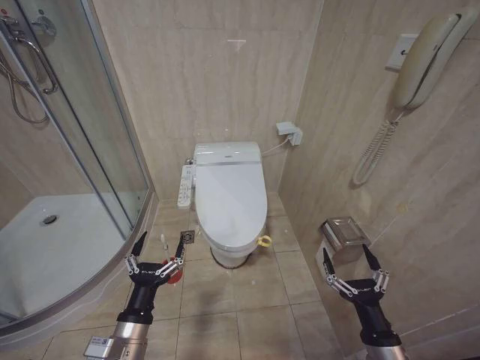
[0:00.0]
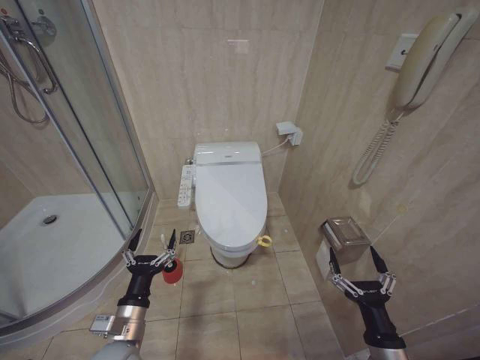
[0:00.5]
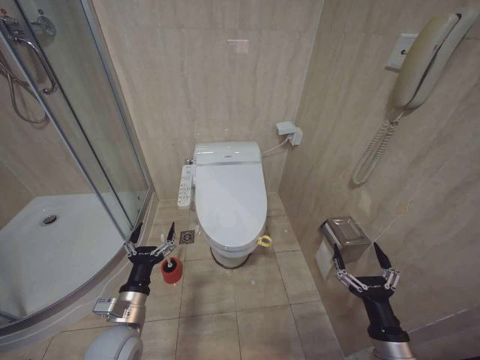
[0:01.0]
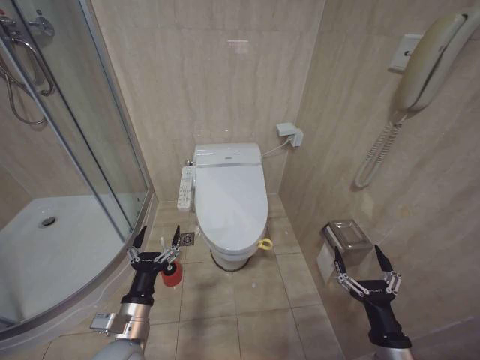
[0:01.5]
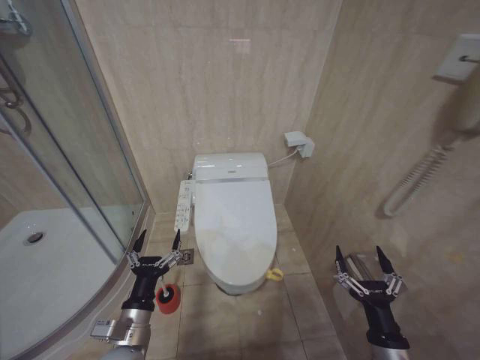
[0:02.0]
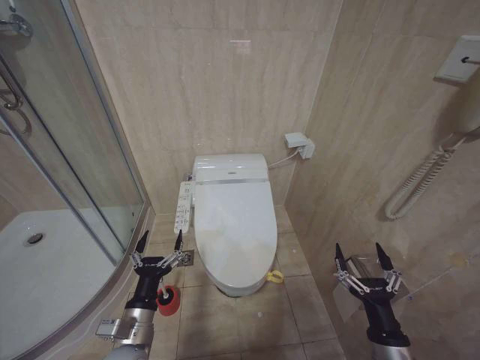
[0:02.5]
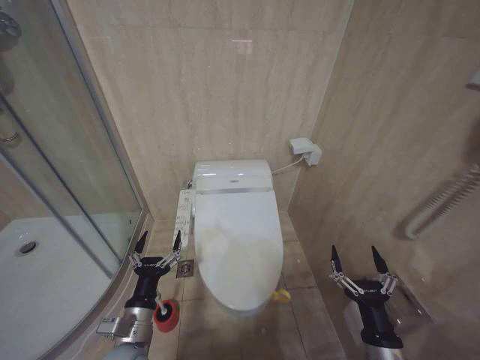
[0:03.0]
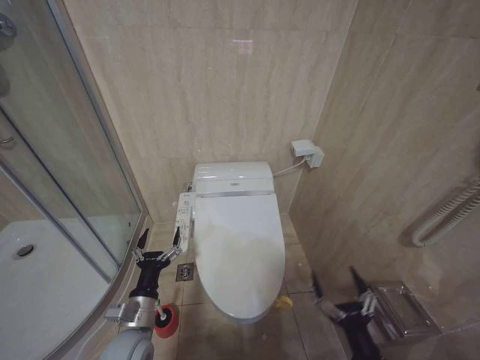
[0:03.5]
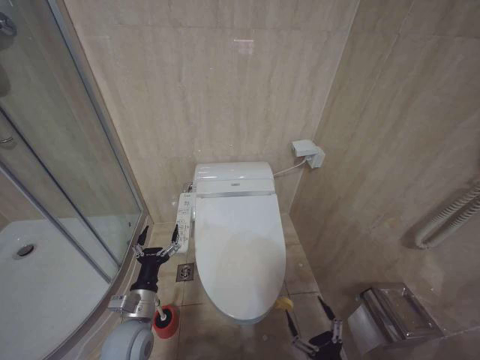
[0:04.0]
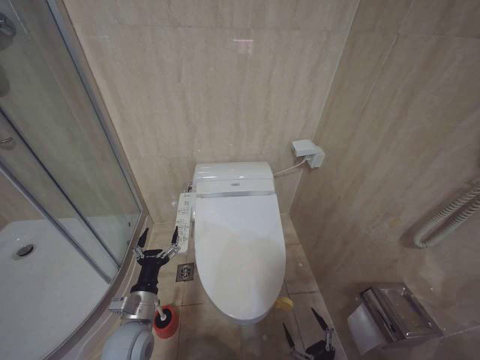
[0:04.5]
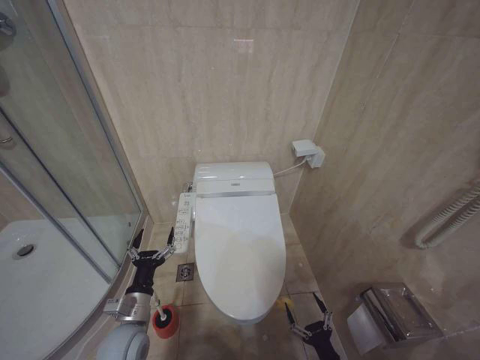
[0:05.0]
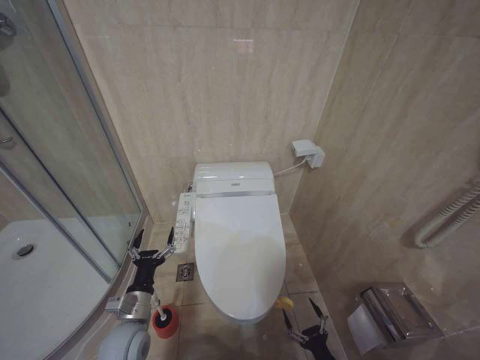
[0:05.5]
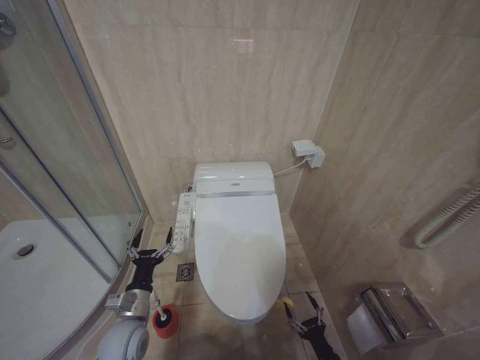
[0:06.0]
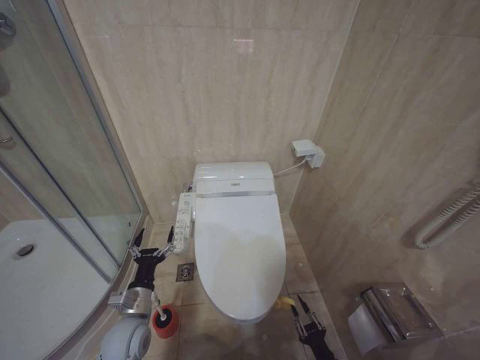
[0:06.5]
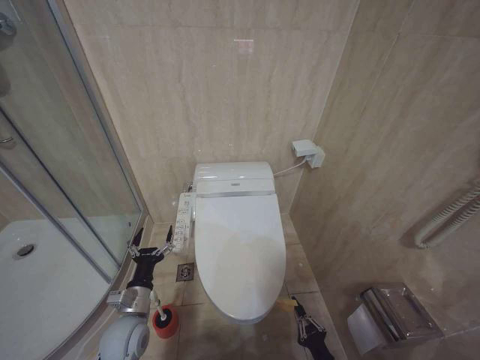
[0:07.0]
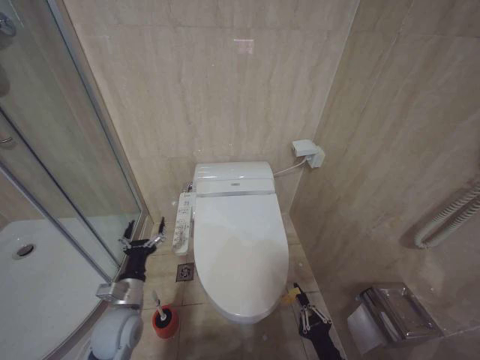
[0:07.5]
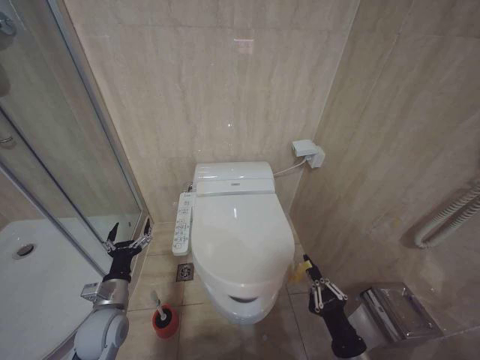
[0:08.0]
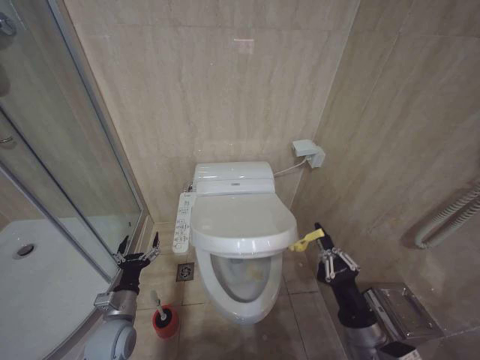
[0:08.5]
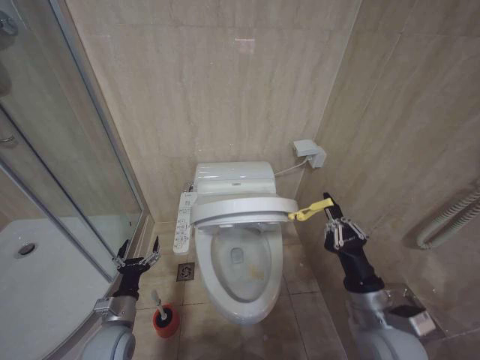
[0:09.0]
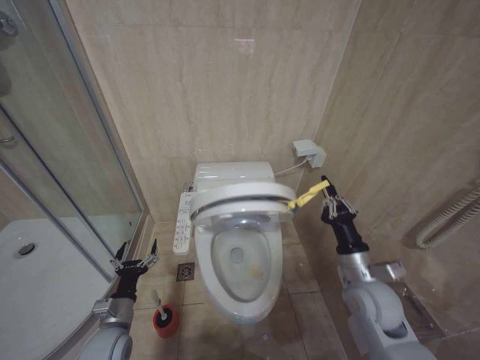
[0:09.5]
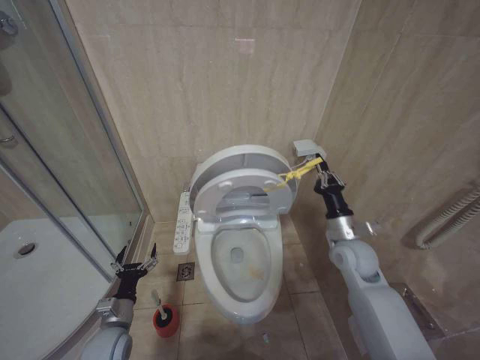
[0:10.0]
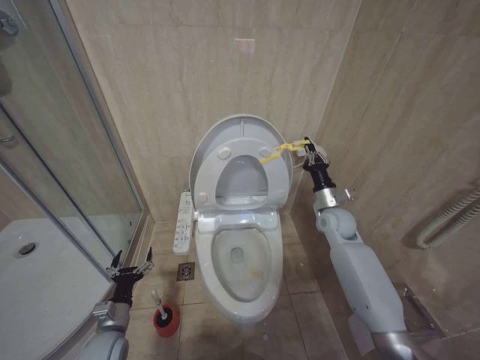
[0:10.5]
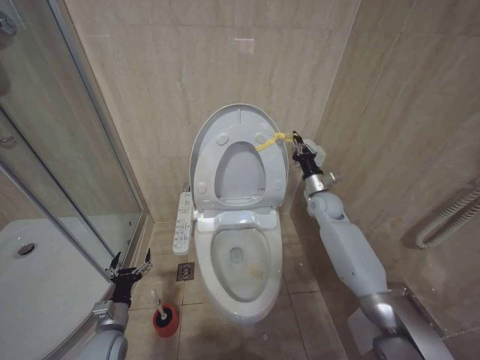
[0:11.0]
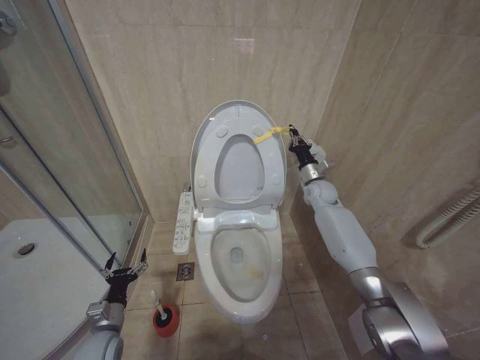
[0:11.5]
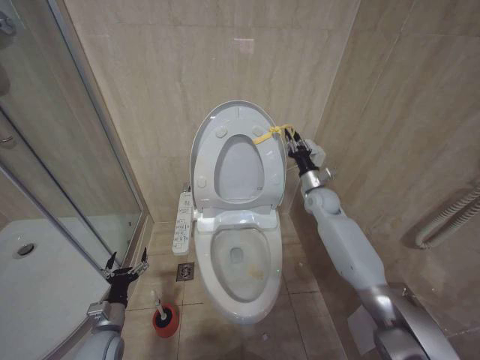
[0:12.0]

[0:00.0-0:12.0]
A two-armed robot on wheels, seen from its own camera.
Task of the whole recording: Open the toilet lid, clean the toilet bowl with a toilet brush, close the toilet lid, and flush.
0:02.0 to 0:04.0: The right gripper goes about 10 cm downward and backward; the left gripper shifts approximately 5 cm forward.
0:04.0 to 0:06.0: The right gripper travels downward and forward by roughly 15 cm.
0:06.0 to 0:08.0: The right gripper heads upward, covering roughly 20 cm, and closes its fingers. The left gripper moves some 5 cm.
0:08.0 to 0:10.0: The right gripper moves forward and upward, approximately 25 cm, while the left gripper heads downward, covering about 5 cm.
0:10.0 to 0:12.0: The right gripper shifts about 20 cm forward.

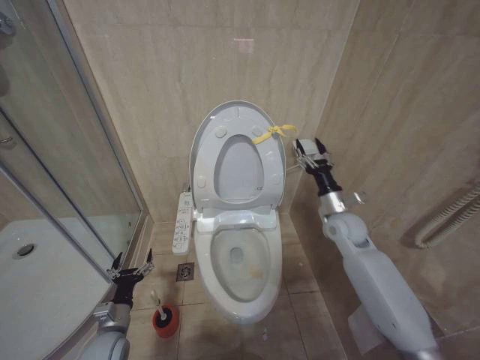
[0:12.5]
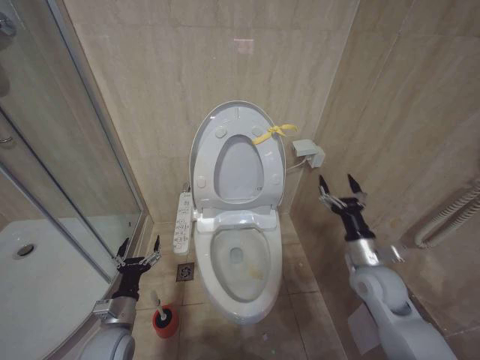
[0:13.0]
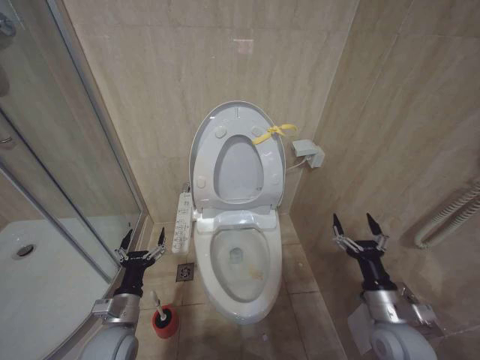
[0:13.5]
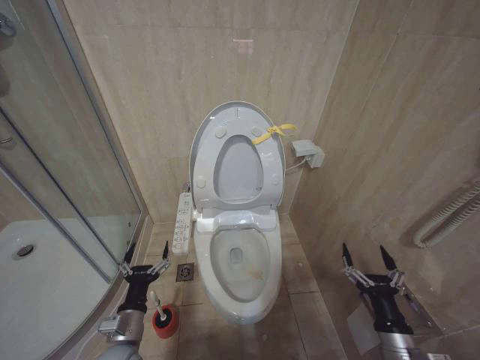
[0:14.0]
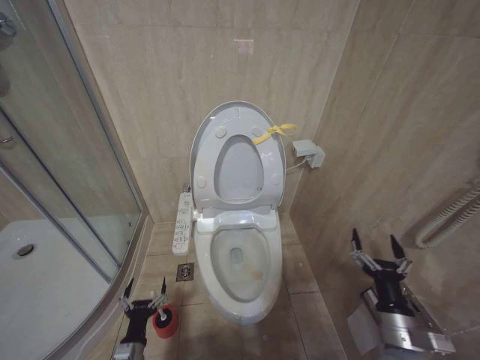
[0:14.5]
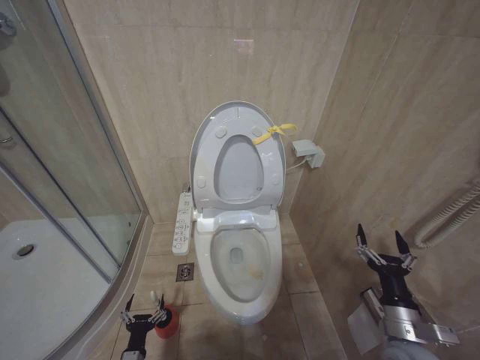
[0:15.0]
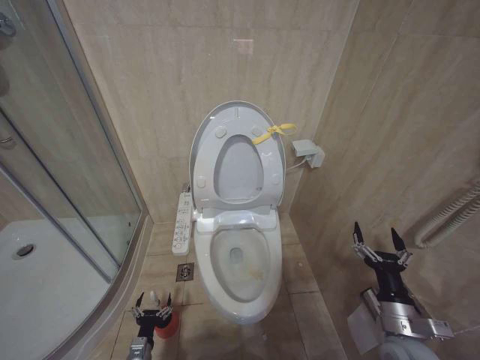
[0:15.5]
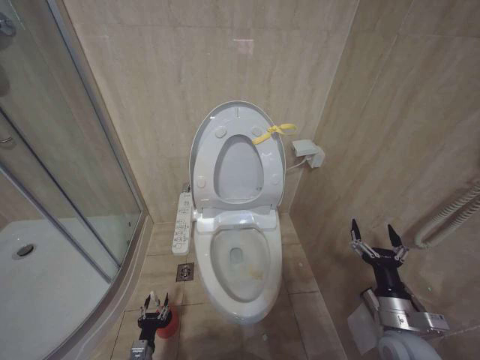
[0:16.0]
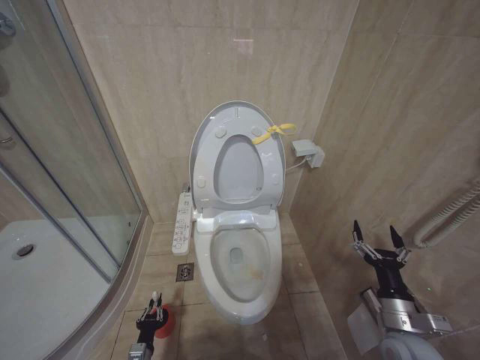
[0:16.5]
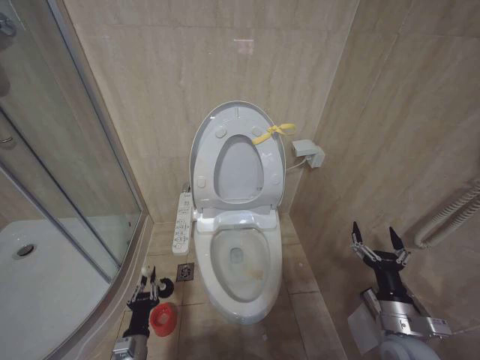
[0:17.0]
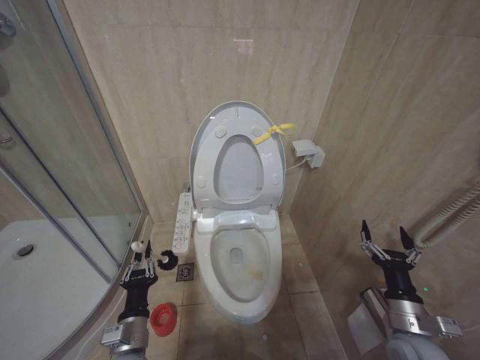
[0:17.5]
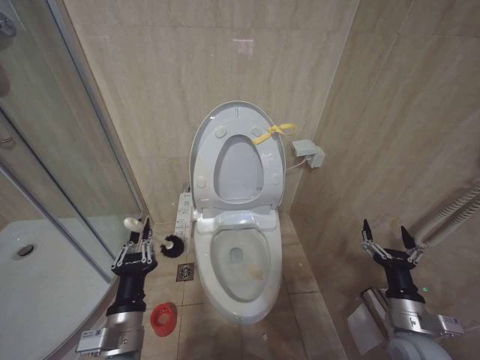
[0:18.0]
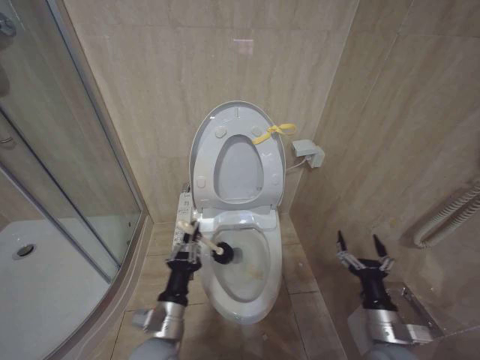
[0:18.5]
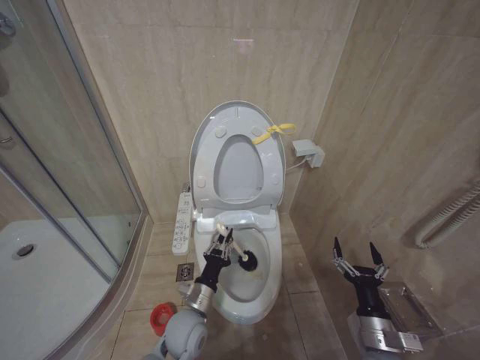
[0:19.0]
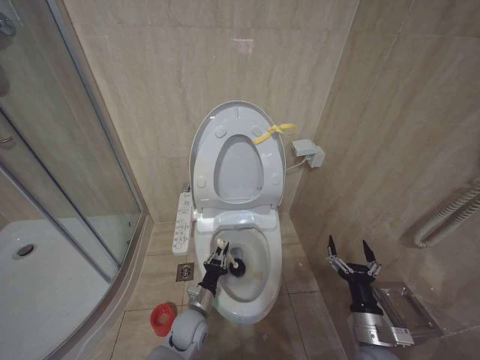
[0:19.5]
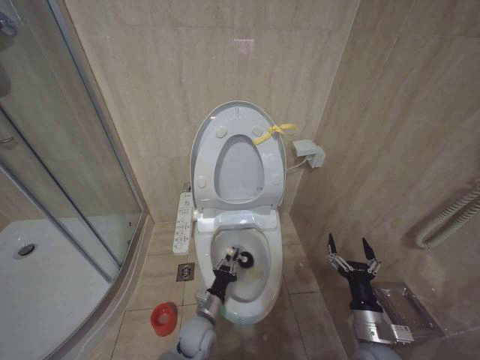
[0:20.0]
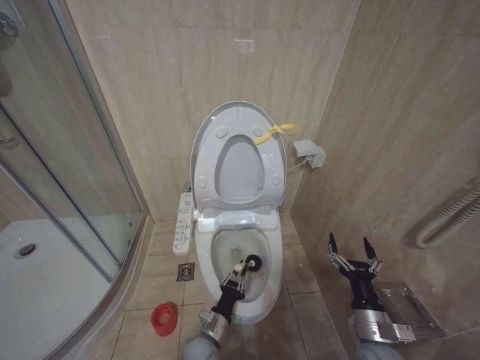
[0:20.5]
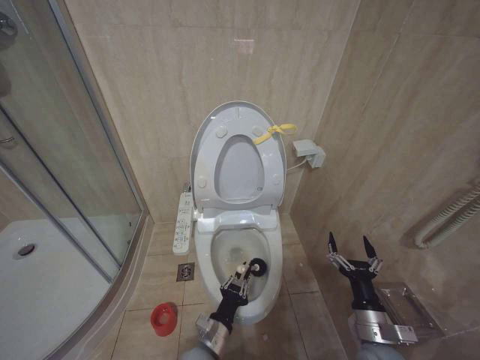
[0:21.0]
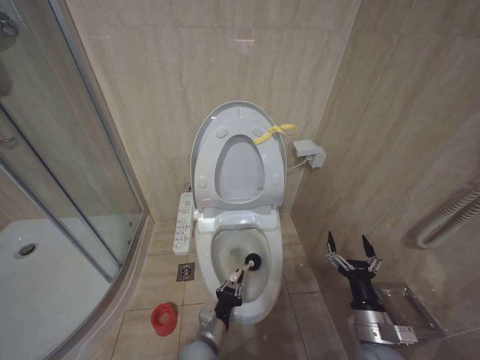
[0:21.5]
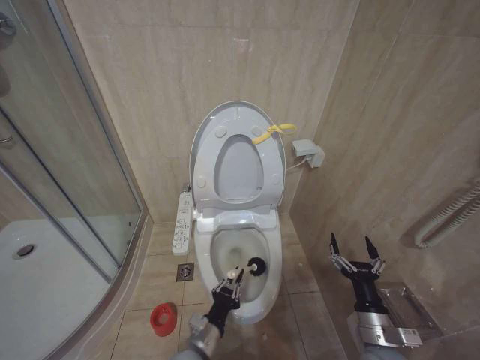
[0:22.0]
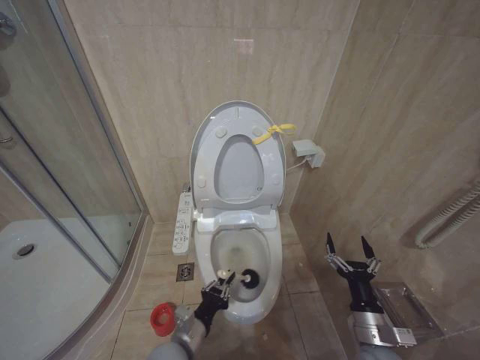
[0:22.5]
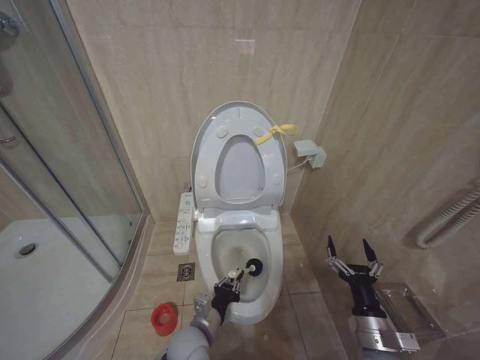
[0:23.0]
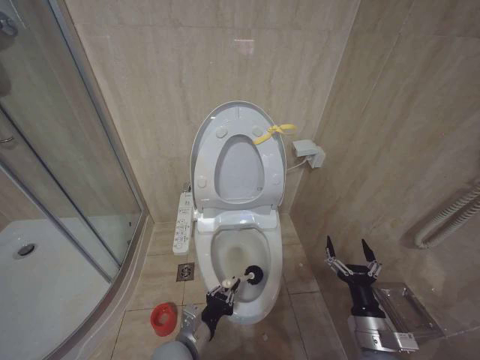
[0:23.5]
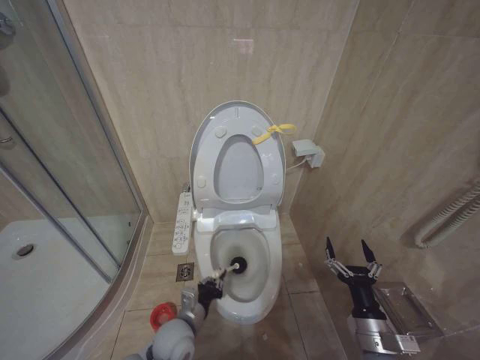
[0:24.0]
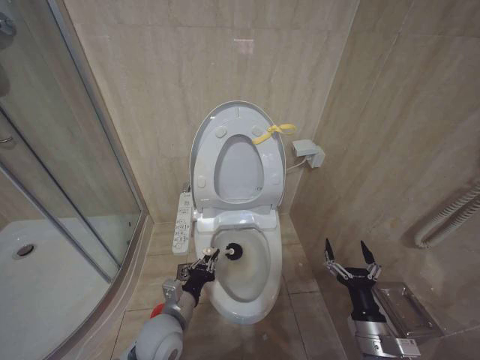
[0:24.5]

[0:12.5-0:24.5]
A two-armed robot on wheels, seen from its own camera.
Task of the whole recording: Open the toilet lid, clean the toilet bowl with a toilet brush, close the toilet lid, and flush.
0:12.5 to 0:14.5: The left gripper goes approximately 10 cm backward and to the right, and goes upward and returns, roughly 10 cm each way; the right gripper moves backward and downward, approximately 30 cm.
0:14.5 to 0:16.5: The left gripper travels downward by some 10 cm, and closes up.
0:16.5 to 0:18.5: The left gripper is displaced upward and to the right by approximately 30 cm.
0:18.5 to 0:20.5: The left gripper is displaced downward and to the right by roughly 20 cm.
0:20.5 to 0:22.5: The left gripper goes approximately 10 cm upward and to the left.
0:22.5 to 0:24.5: The left gripper goes approximately 5 cm forward.

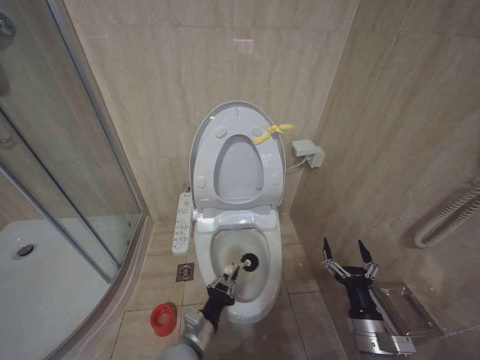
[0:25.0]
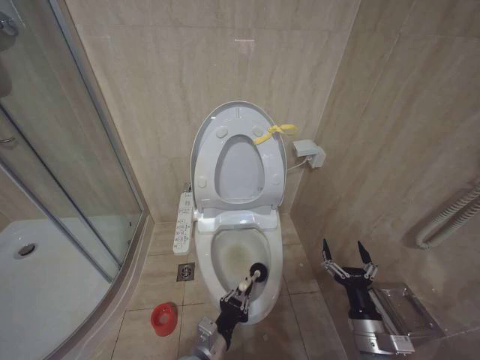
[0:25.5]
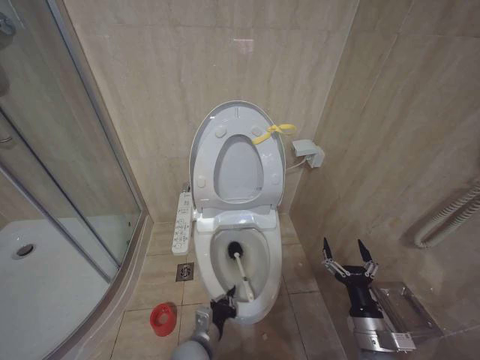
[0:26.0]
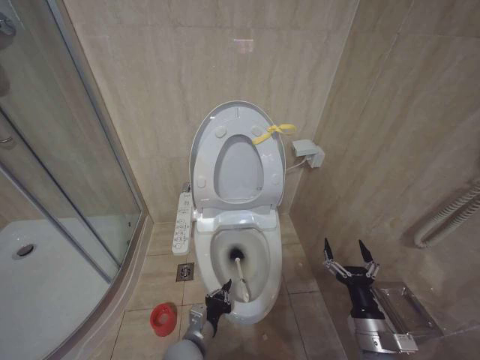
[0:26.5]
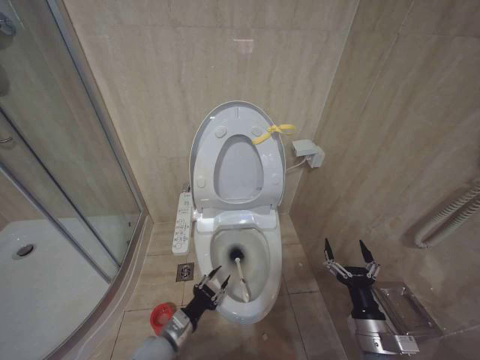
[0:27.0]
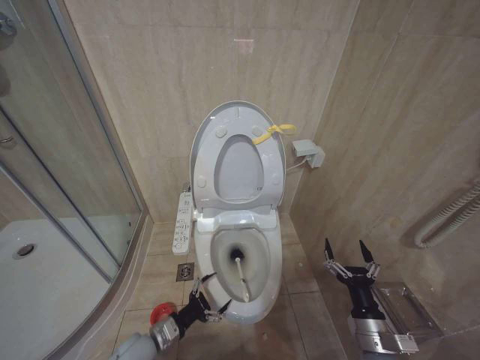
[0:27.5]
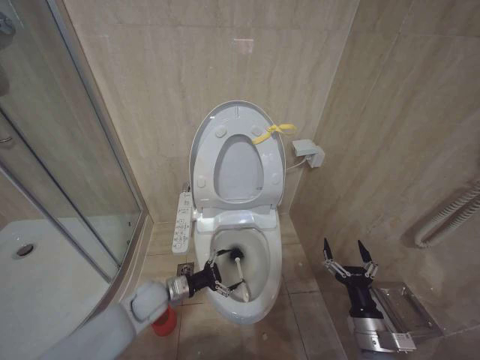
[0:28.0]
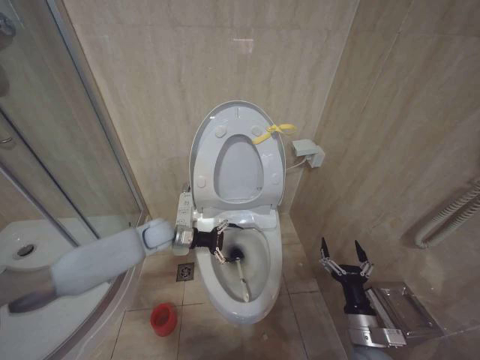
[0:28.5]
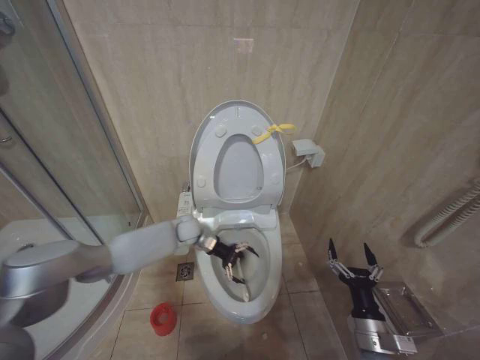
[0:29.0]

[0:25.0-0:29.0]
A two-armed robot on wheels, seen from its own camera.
Task of the whole recording: Open the toilet lid, clean the toilet bowl with a toilet brush, close the toilet lid, and flush.
0:25.0 to 0:27.0: The left gripper changes place by some 5 cm.
0:27.0 to 0:29.0: The left gripper travels forward by about 30 cm, and opens its fingers.
